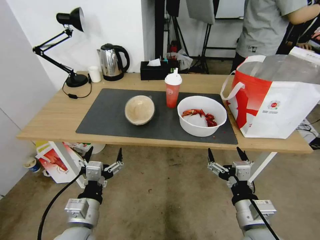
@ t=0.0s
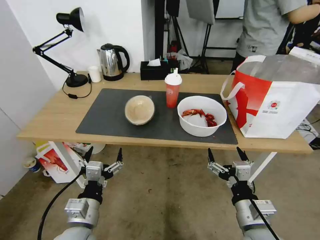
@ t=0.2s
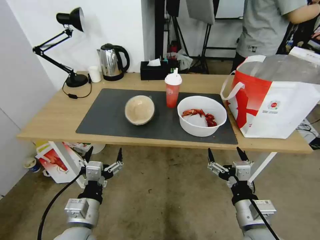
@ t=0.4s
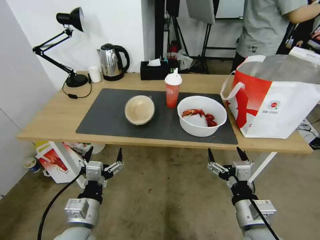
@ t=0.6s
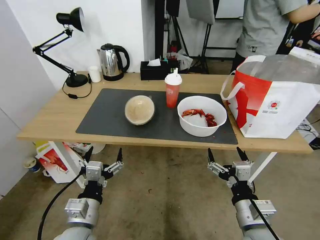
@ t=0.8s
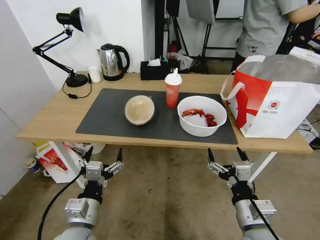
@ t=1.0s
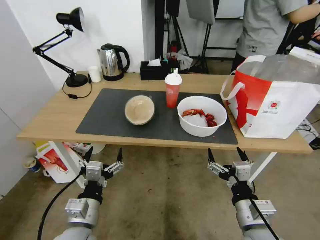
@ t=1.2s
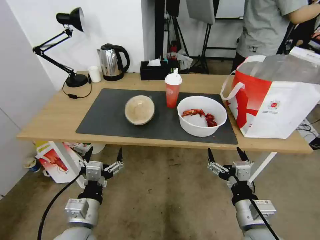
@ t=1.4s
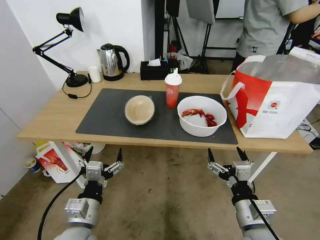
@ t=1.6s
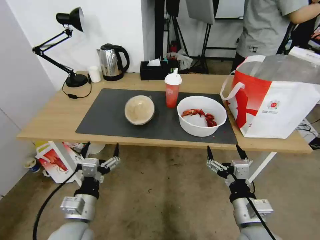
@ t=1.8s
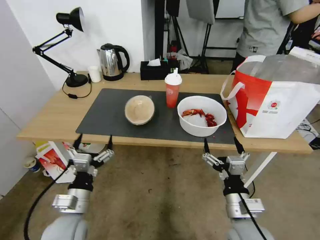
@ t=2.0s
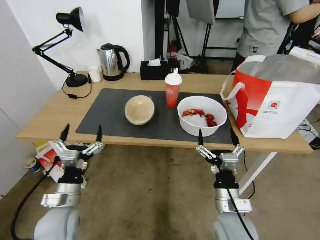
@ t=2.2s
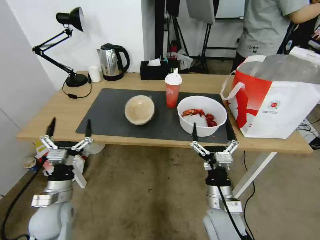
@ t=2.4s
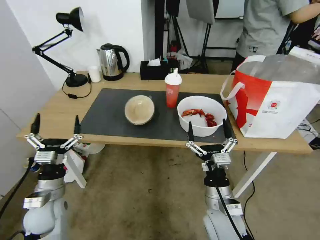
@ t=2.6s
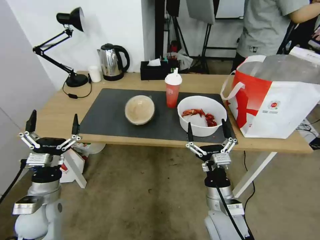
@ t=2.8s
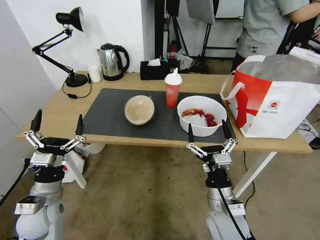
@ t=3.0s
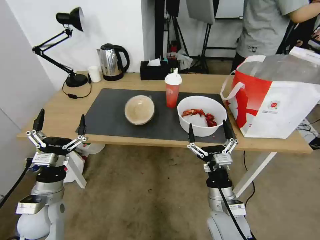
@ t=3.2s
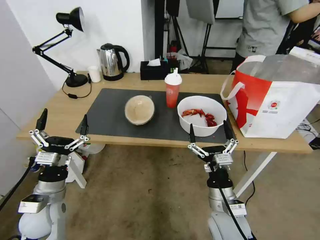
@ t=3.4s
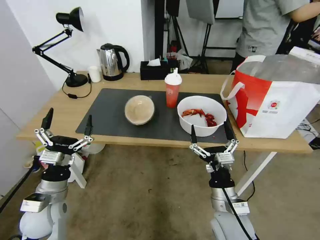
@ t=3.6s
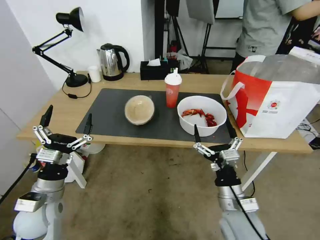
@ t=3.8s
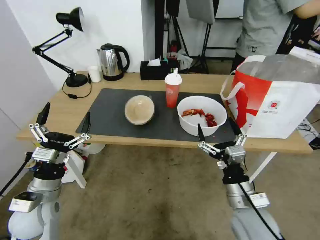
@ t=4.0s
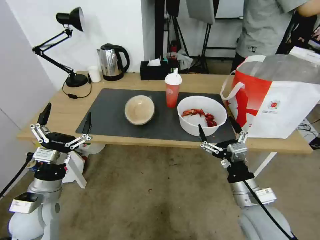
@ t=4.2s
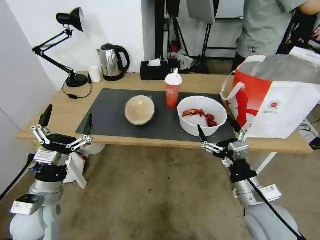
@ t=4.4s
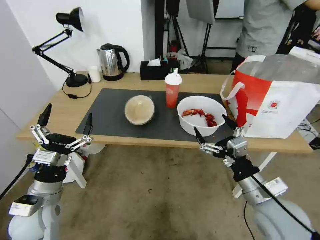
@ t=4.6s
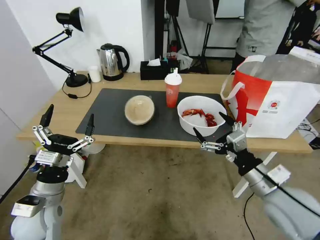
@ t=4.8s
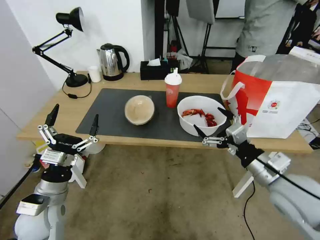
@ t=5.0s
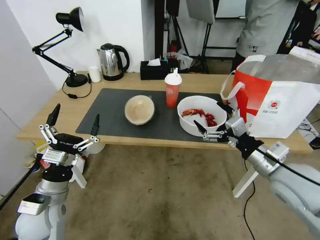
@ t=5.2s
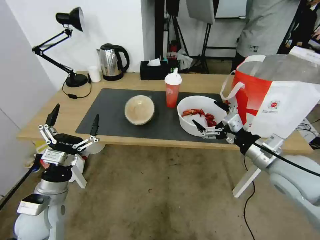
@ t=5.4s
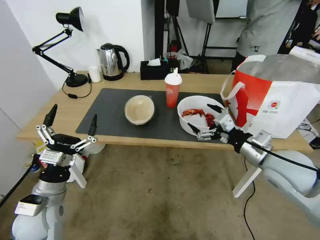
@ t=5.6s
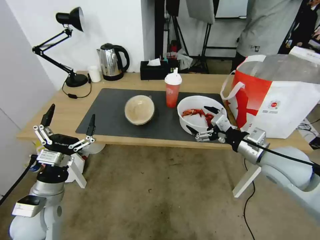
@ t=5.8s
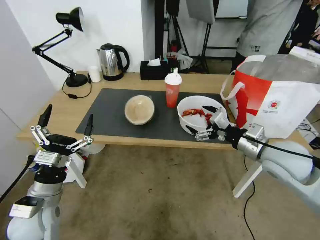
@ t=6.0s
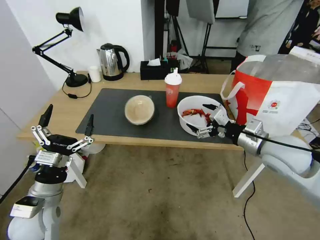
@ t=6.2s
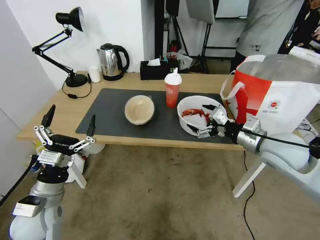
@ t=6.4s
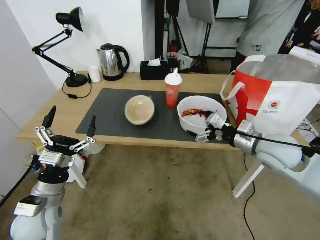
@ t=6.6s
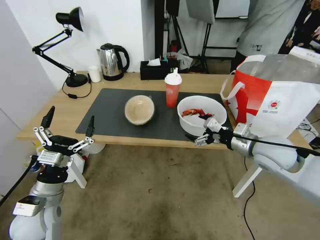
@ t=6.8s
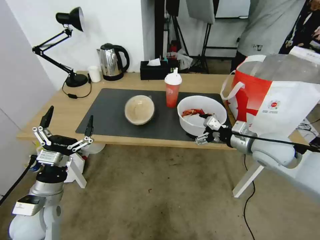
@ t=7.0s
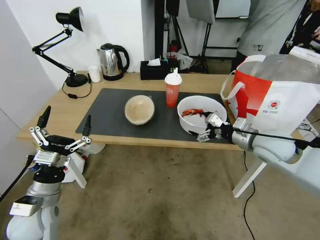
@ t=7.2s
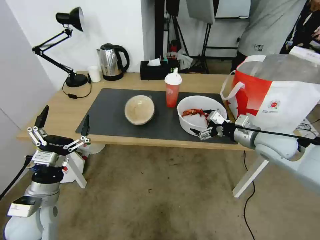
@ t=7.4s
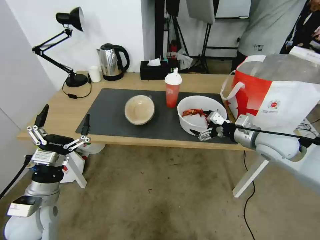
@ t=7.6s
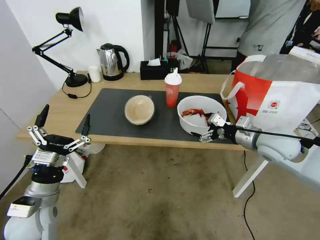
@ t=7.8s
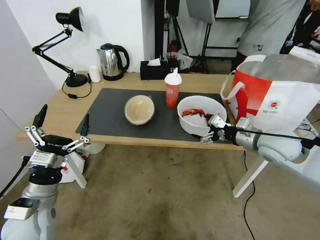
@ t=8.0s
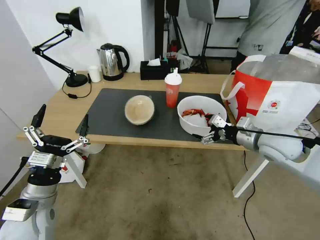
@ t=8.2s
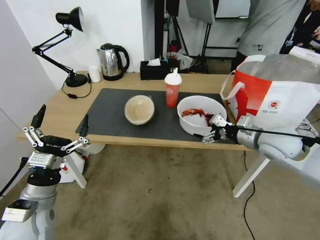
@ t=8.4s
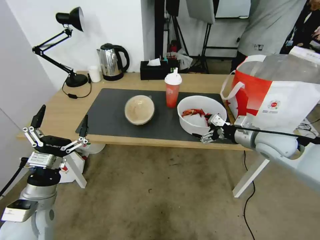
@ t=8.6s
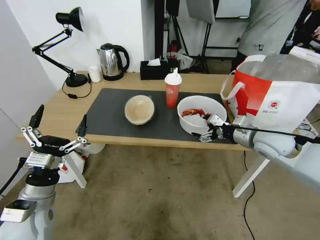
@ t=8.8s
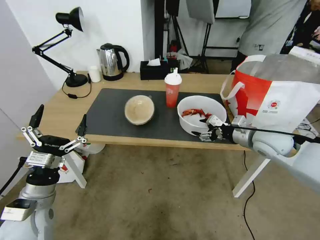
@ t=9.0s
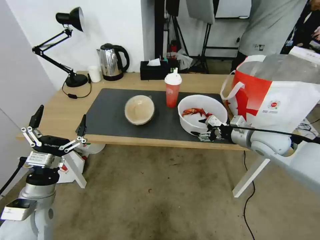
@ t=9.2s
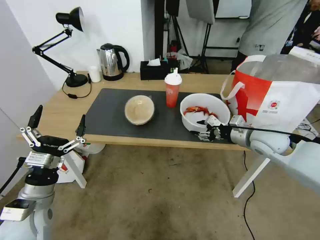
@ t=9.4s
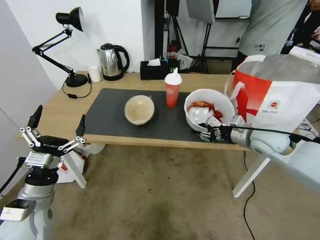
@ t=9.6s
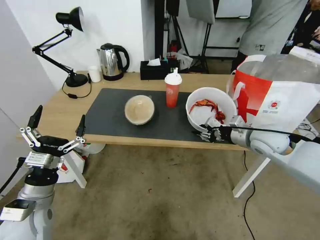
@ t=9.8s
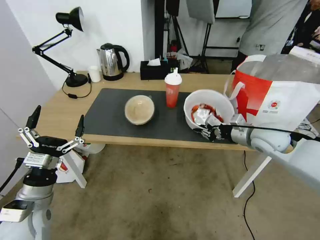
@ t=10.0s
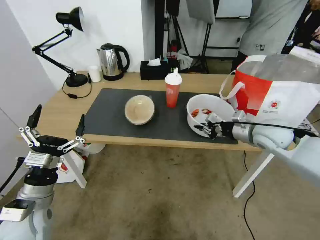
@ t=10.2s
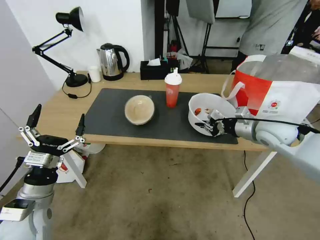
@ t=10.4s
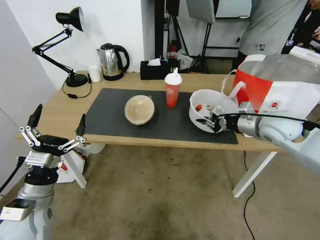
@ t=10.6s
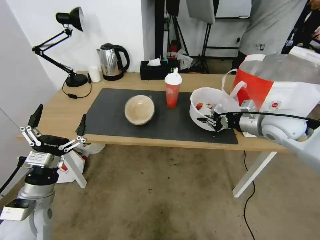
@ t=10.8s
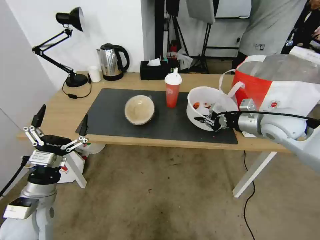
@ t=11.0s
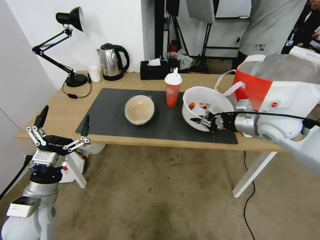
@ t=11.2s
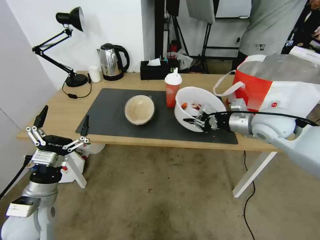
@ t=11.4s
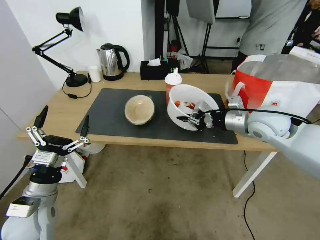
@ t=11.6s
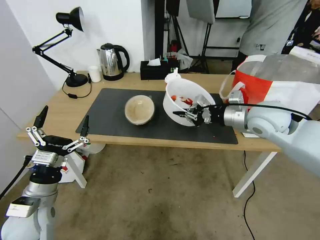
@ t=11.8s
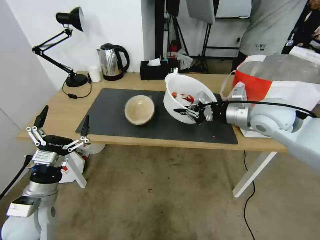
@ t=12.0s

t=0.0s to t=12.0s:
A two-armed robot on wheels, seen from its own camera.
Task of the whole recording: Pick up the trash from the table and place it into the takeout bag.
t=1.6s to t=3.0s: The left gripper travels to the left and forward by roughly 15 cm. Meanwhile the right gripper moves to the left and forward, approximately 10 cm.
t=3.0s to t=4.4s: The right gripper moves to the right and upward, roughly 10 cm.
t=4.4s to t=6.0s: The right gripper shifts roughly 15 cm forward, upward and to the right.
t=6.0s to t=7.6s: The right gripper goes about 5 cm forward.
t=7.6s to t=9.0s: The grippers move only a little.
t=9.0s to t=10.4s: The right gripper closes up.
t=10.4s to t=12.0s: The right gripper goes about 10 cm upward and to the left.

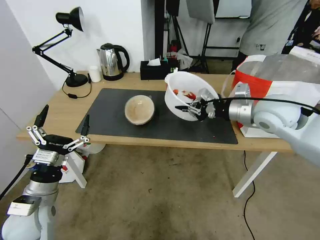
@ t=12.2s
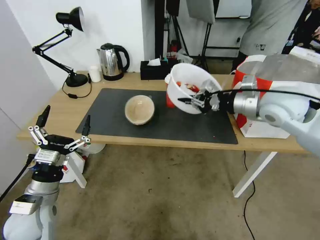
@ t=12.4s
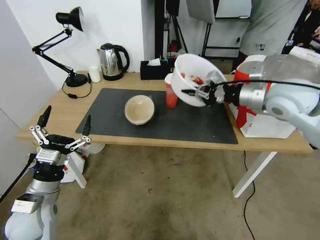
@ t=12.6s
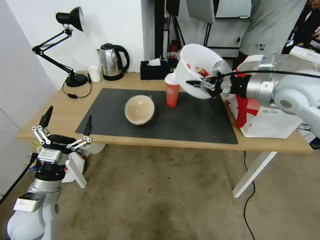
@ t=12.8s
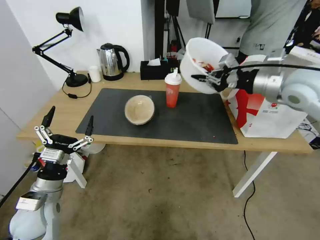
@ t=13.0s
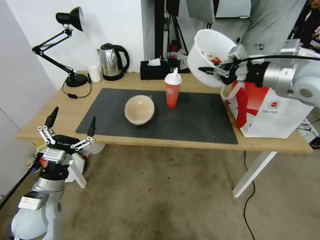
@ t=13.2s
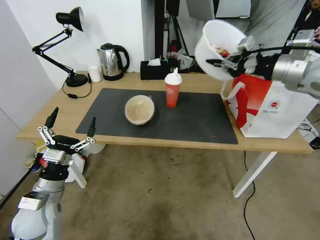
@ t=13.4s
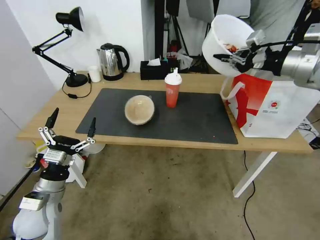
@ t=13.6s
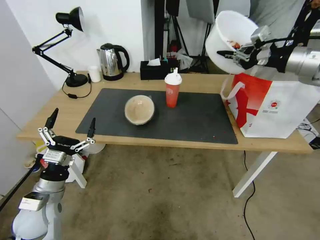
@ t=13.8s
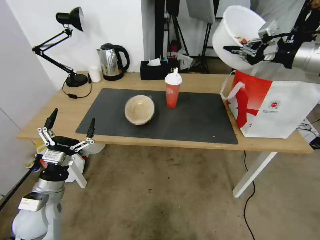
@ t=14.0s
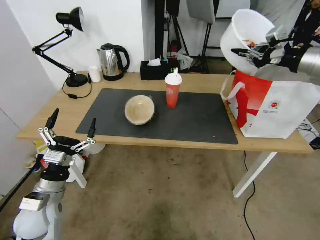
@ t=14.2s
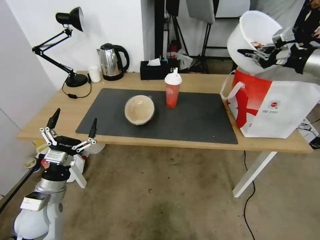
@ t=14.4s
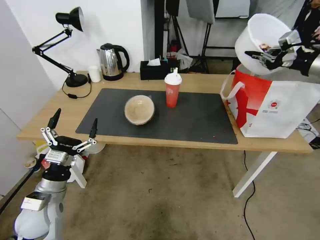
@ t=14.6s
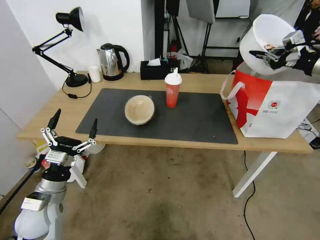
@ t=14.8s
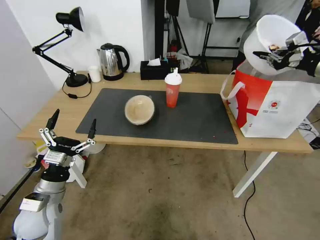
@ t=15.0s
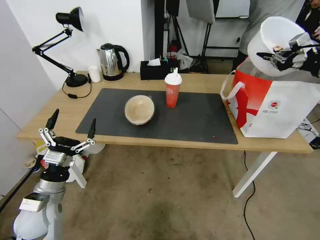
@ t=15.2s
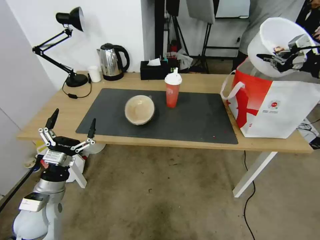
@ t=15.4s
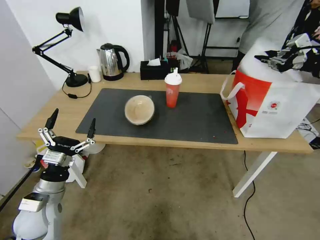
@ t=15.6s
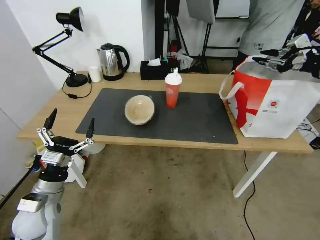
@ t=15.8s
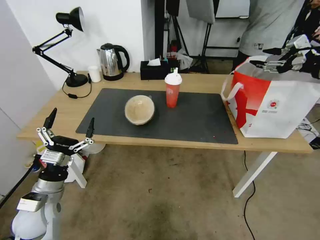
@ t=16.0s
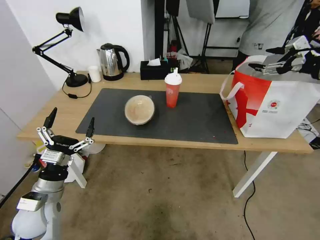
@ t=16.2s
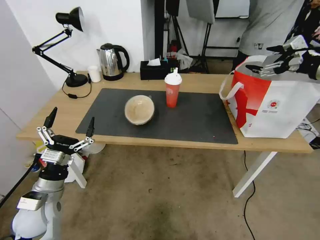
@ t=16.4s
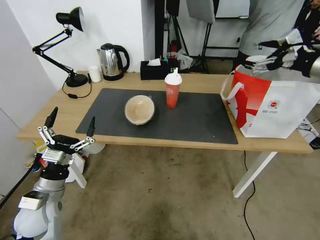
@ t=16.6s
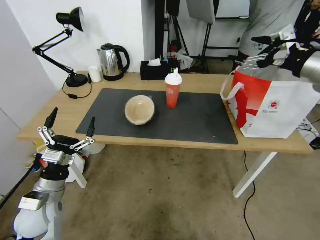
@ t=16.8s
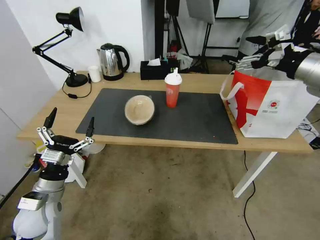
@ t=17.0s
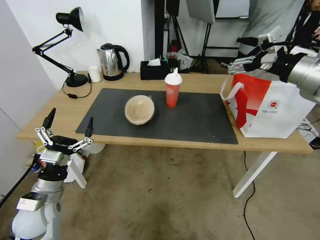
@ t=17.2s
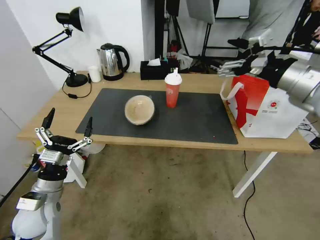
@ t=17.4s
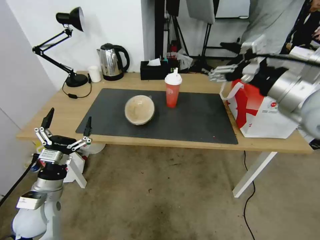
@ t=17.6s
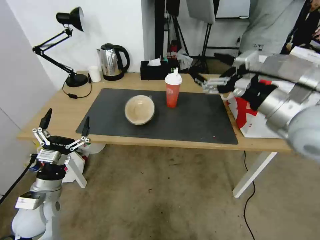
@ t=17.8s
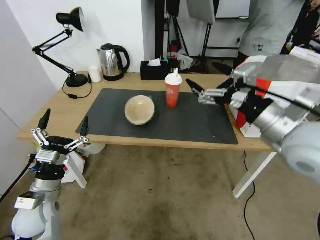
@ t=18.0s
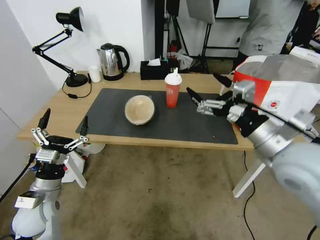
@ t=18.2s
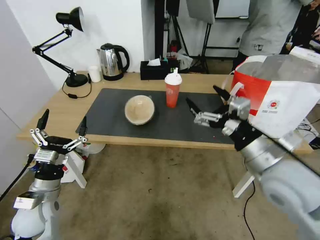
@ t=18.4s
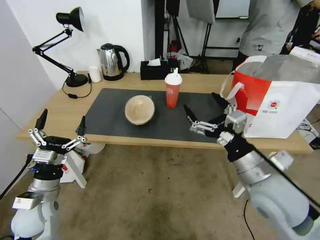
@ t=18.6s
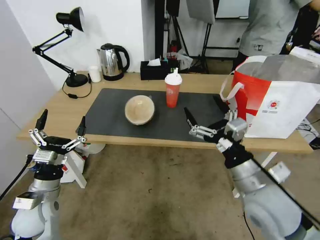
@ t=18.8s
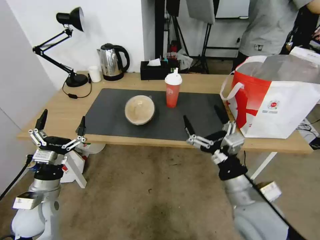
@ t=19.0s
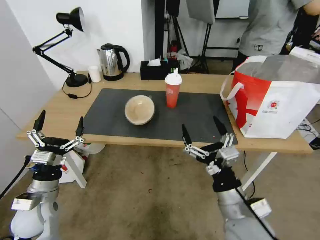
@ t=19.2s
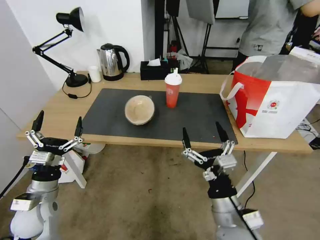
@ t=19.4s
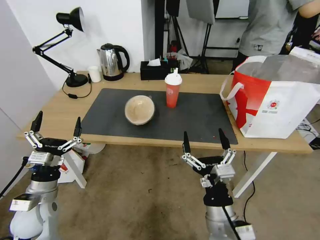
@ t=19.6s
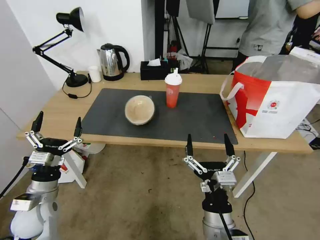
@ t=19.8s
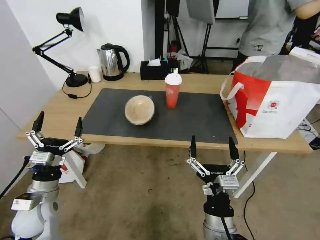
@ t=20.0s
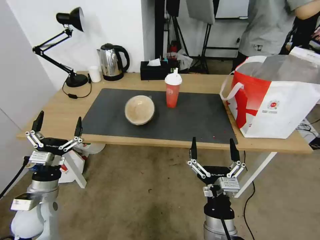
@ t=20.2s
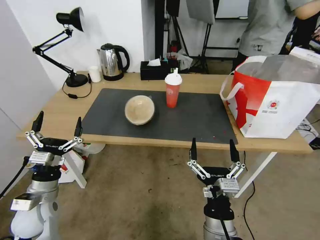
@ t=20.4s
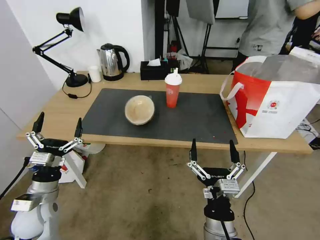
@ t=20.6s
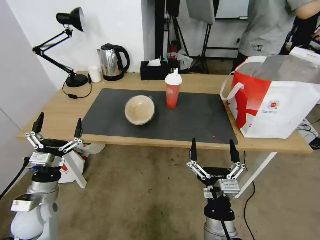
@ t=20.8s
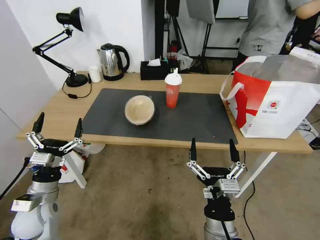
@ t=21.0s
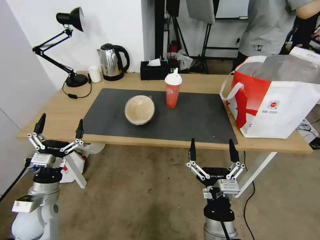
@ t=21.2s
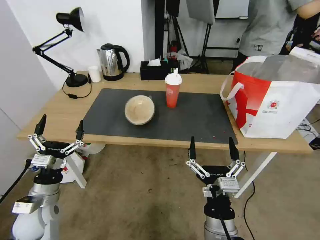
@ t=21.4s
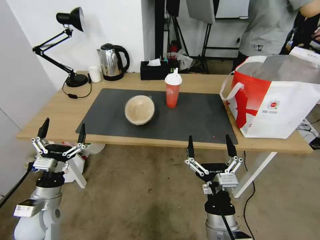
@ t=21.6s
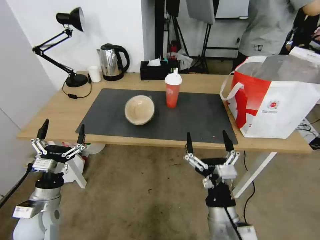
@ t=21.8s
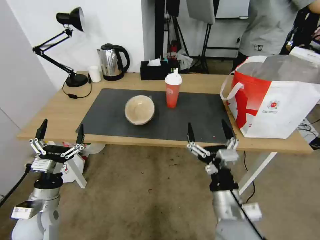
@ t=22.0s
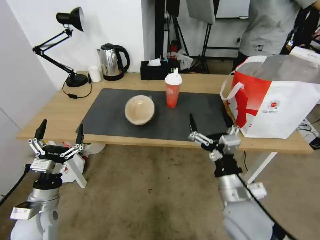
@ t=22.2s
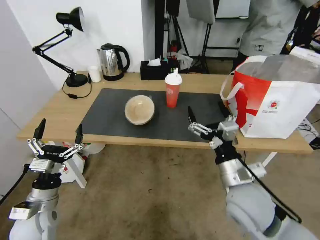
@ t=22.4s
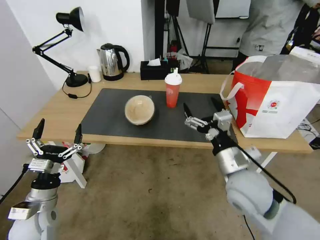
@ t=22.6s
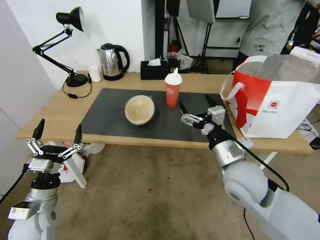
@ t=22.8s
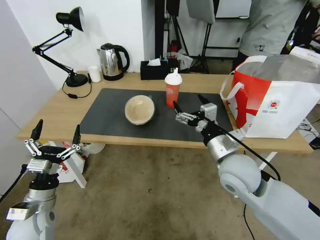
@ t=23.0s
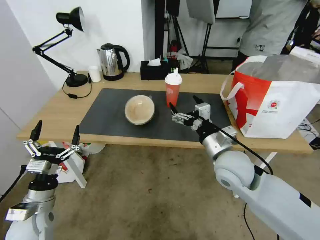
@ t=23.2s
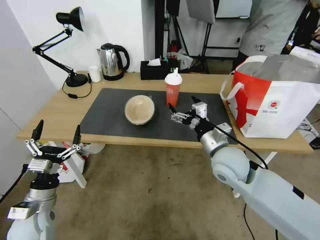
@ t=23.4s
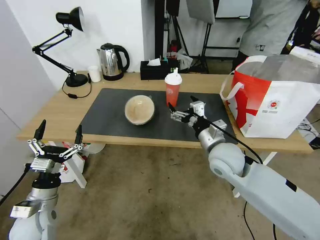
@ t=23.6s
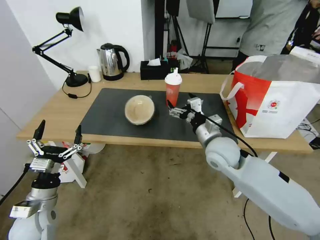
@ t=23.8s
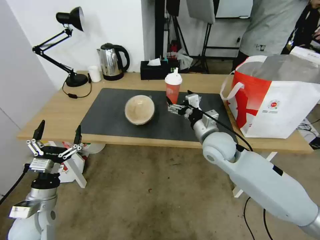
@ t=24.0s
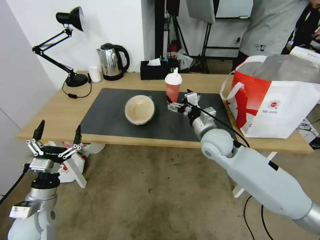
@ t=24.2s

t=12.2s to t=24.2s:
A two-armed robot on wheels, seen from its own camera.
Task of the whole recording: Pick up the trash from the table and place it into the takeout bag.
t=12.2s to t=13.8s: The right gripper shifts about 15 cm upward and to the right.
t=13.8s to t=15.2s: The right gripper is displaced to the right by roughly 10 cm.
t=15.2s to t=16.6s: The right gripper goes about 5 cm to the left, and opens up.
t=16.6s to t=18.2s: The right gripper travels to the left, backward and downward by roughly 25 cm.
t=18.2s to t=19.8s: The right gripper is displaced downward, to the left and backward by roughly 25 cm.
t=19.8s to t=21.2s: Neither gripper changes place.
t=21.2s to t=22.6s: The right gripper moves forward, upward and to the right, approximately 20 cm.
t=22.6s to t=24.2s: The right gripper goes roughly 15 cm forward.
